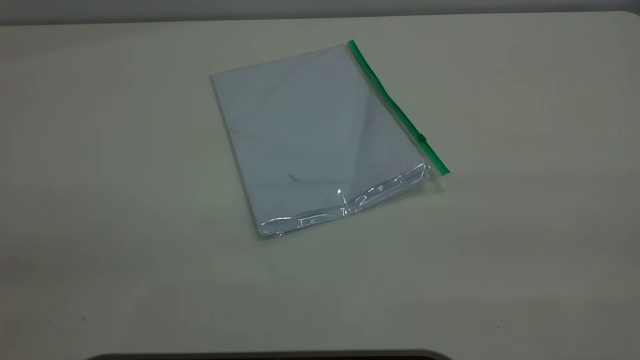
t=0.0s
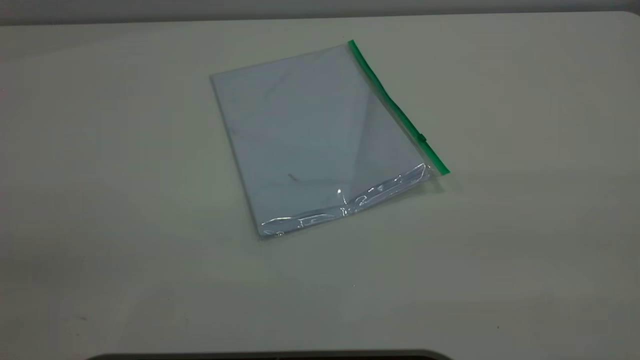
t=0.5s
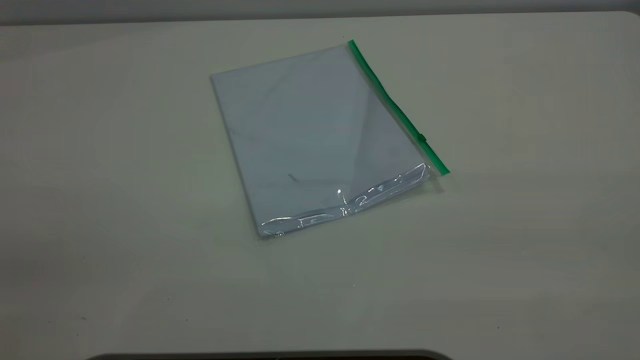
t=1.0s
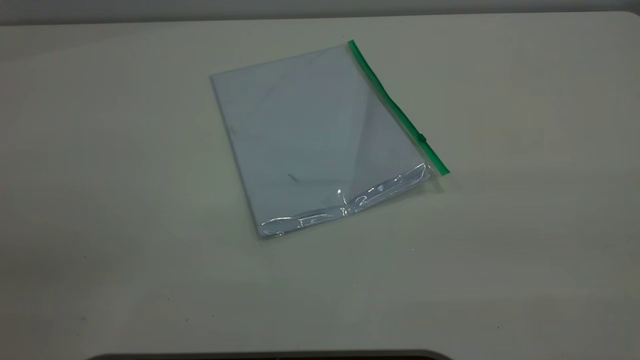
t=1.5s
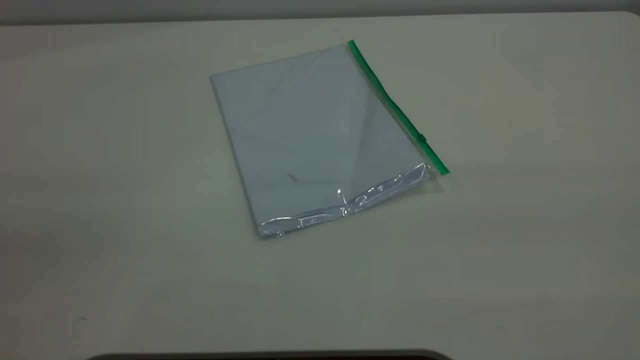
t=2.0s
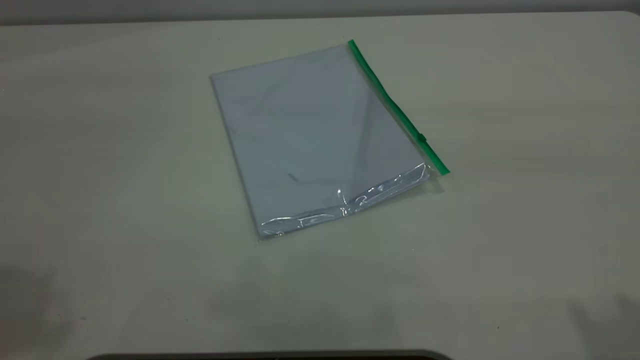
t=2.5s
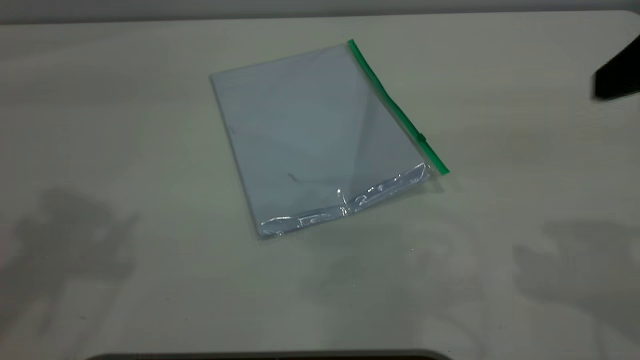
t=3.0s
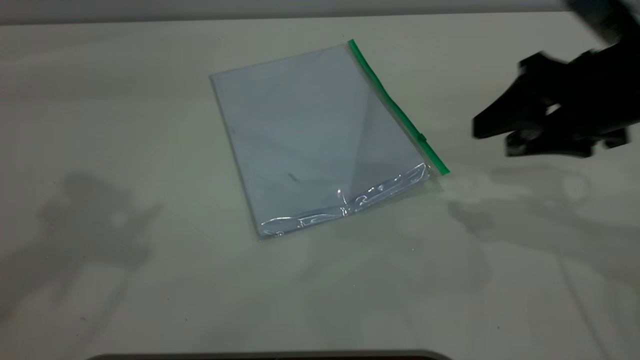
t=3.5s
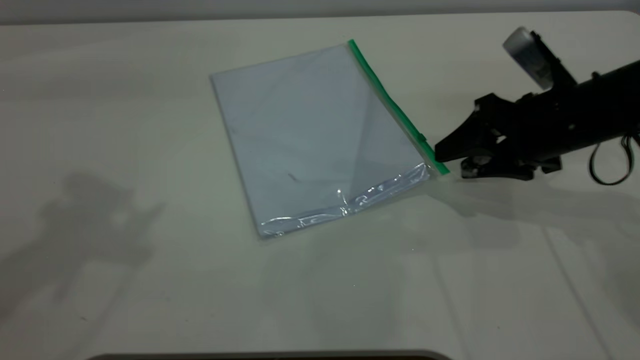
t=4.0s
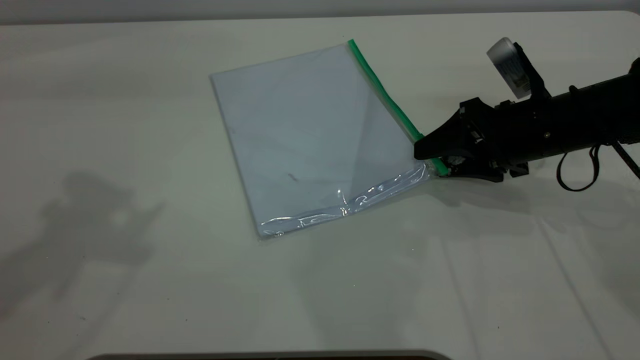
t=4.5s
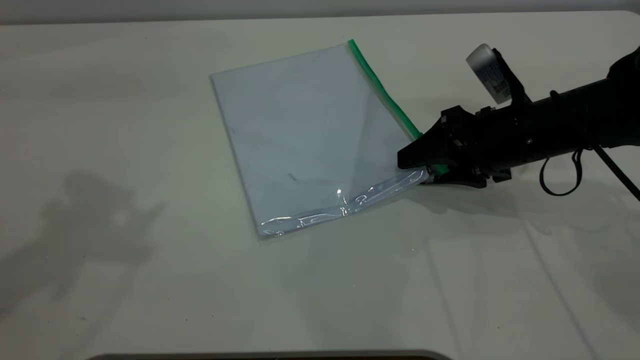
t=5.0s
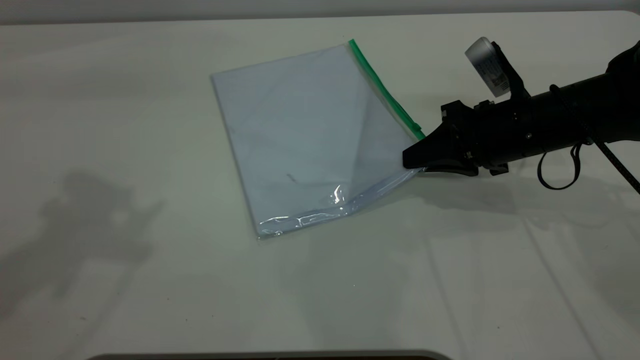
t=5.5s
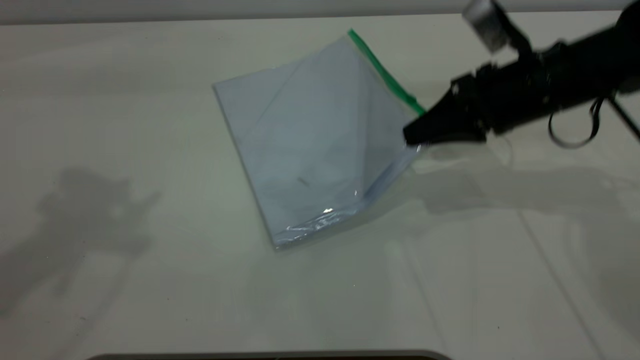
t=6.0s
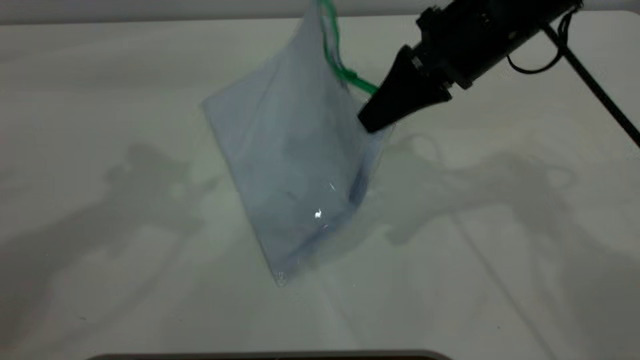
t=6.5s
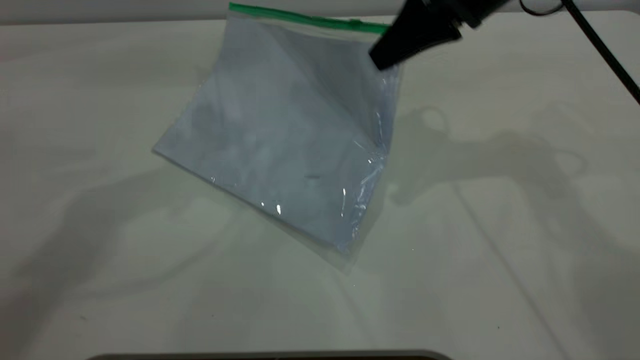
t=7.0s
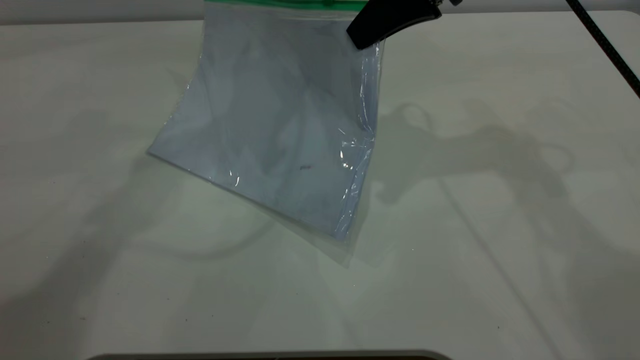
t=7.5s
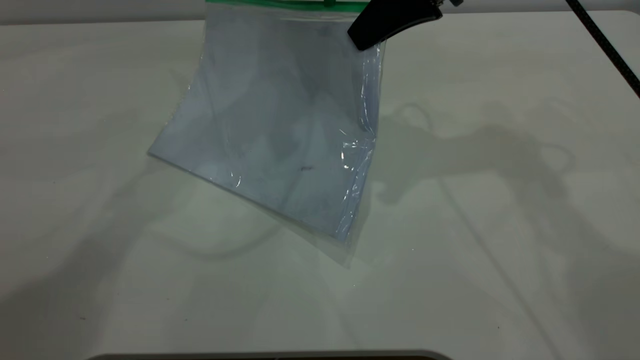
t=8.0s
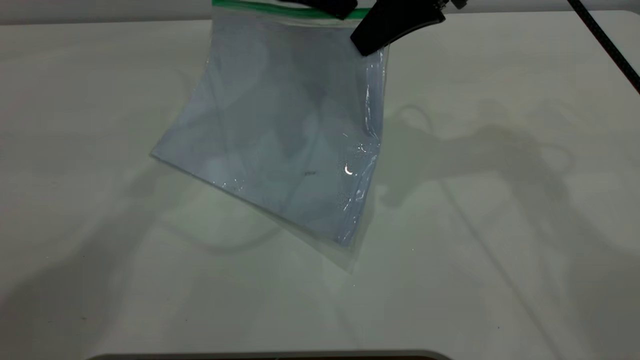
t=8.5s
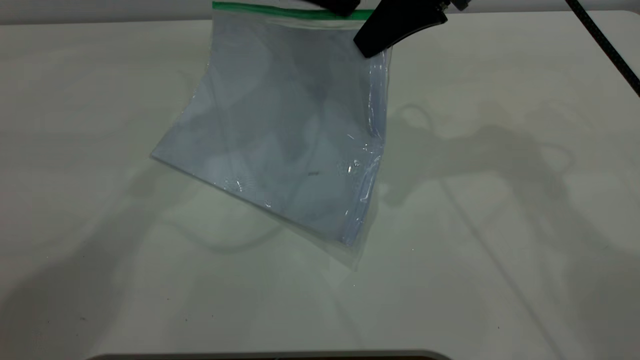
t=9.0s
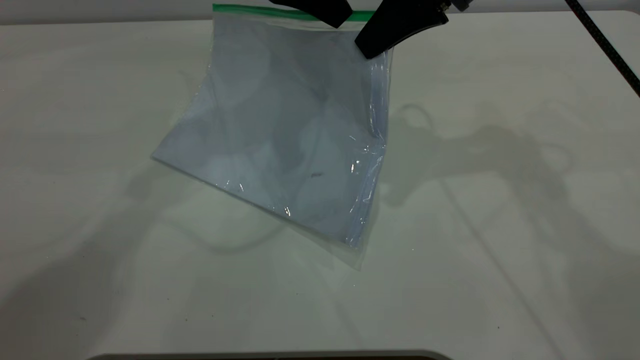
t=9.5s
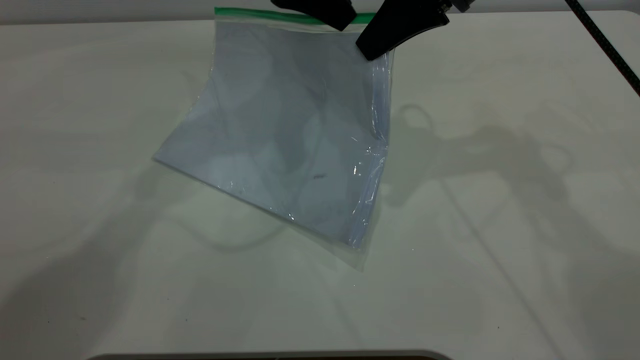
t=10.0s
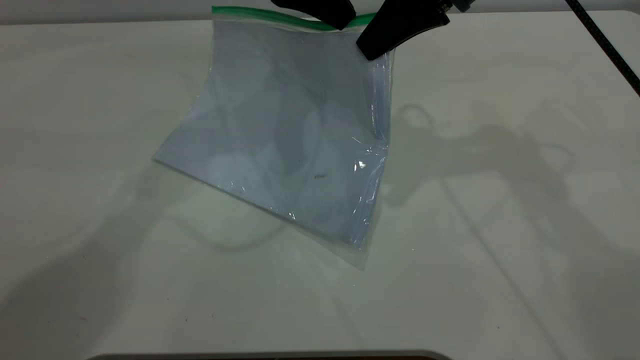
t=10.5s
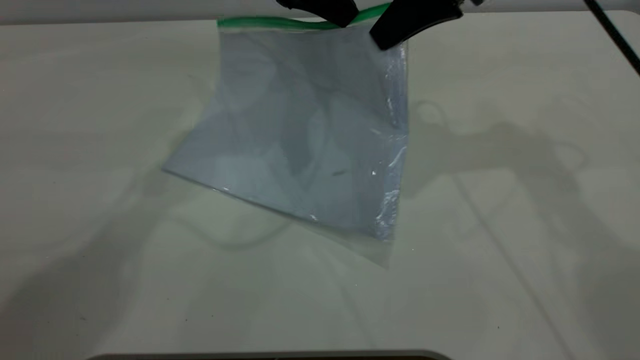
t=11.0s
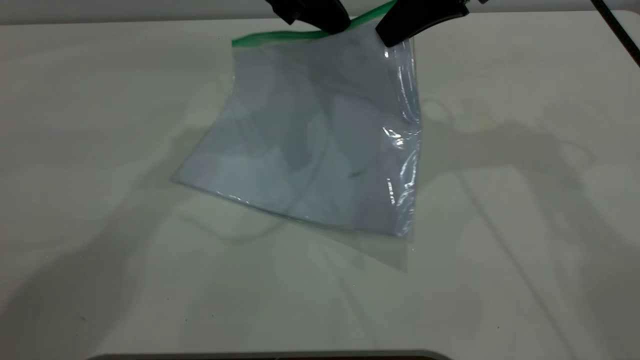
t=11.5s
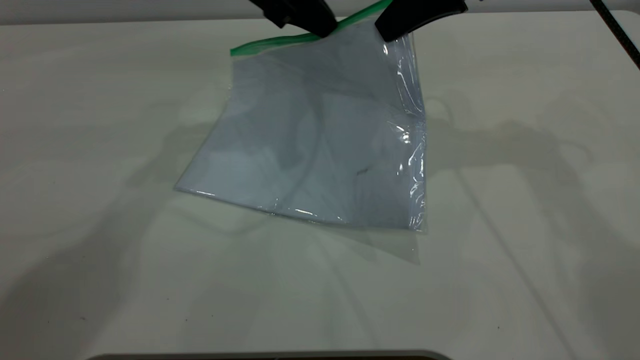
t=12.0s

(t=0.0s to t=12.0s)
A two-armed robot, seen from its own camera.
Step, t=0.0s - t=7.0s: Pick up the transparent plastic bag with the right gripper.
t=2.0s - t=4.0s: The right gripper is displaced forward and downward by about 40 cm.
t=4.0s - t=6.0s: The right gripper ends up roughly 5 cm from where it was, and closes its fingers.
t=6.0s - t=8.0s: The right gripper travels upward and to the left by approximately 15 cm. The left gripper heads to the right, forward and downward, covering some 25 cm.
t=8.0s - t=10.0s: The left gripper closes its fingers.
t=10.0s - t=12.0s: The left gripper closes.

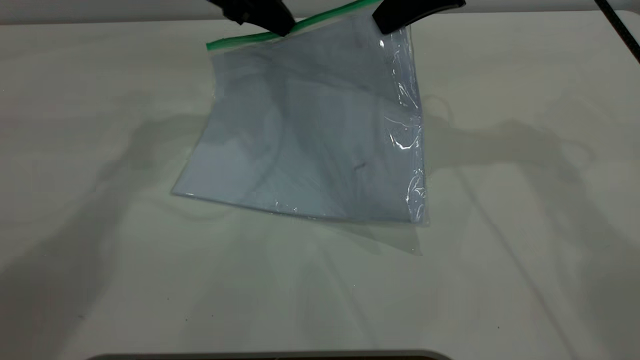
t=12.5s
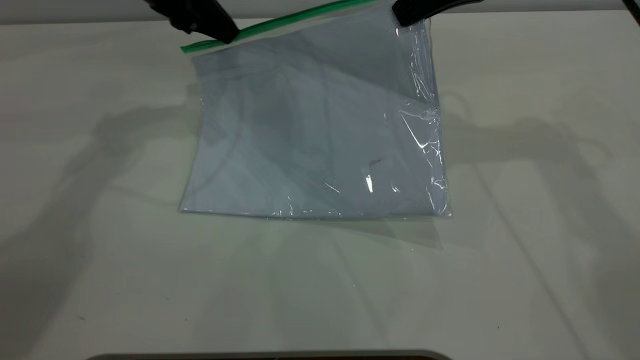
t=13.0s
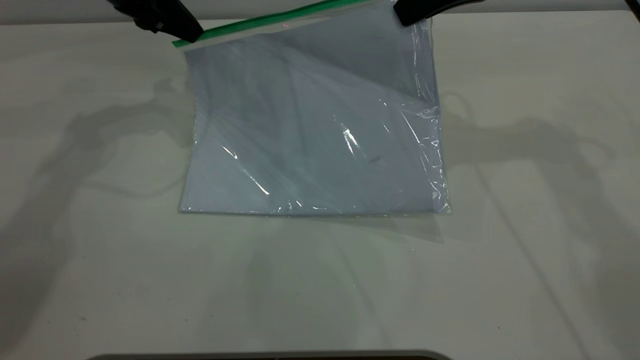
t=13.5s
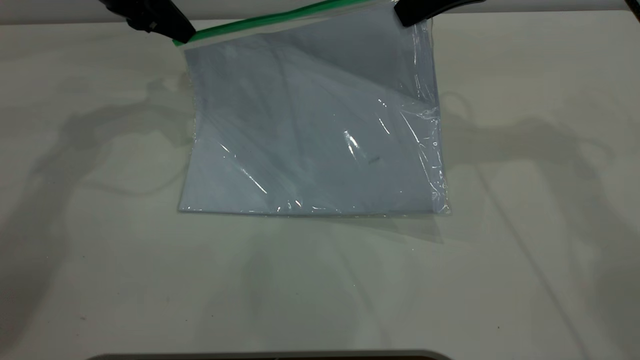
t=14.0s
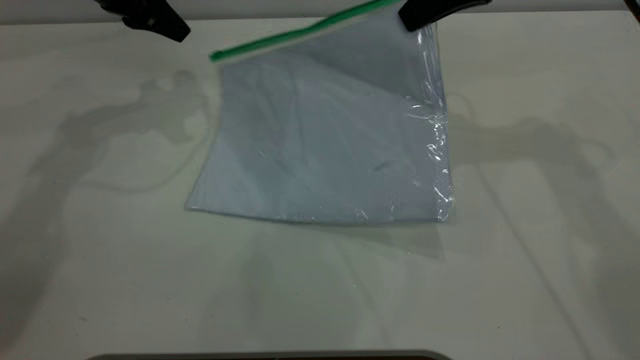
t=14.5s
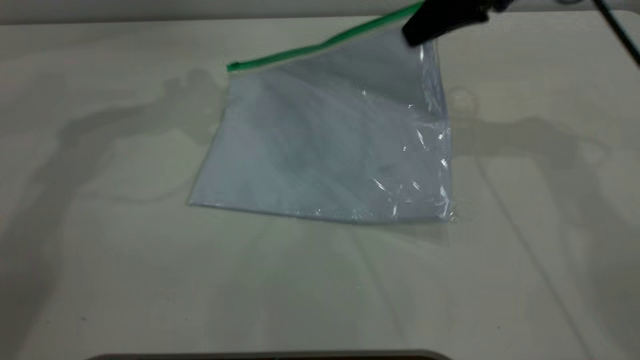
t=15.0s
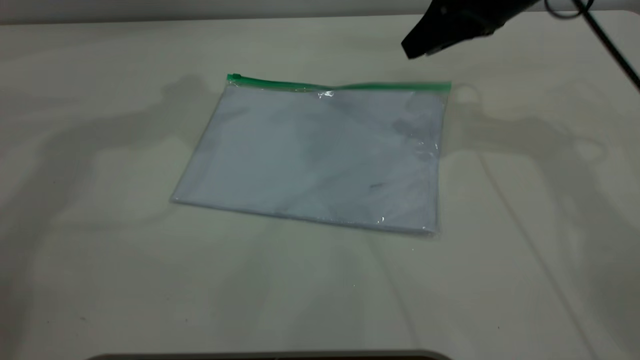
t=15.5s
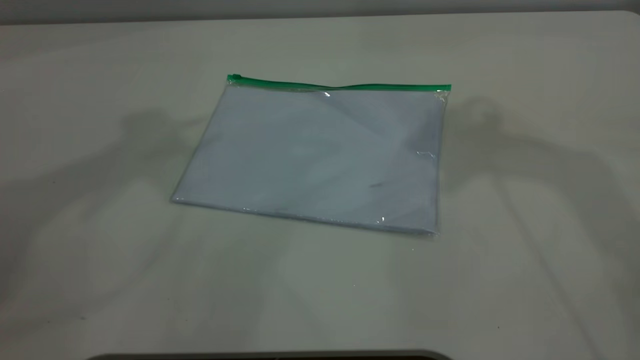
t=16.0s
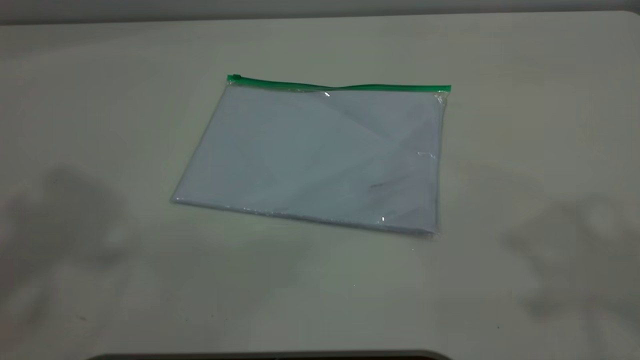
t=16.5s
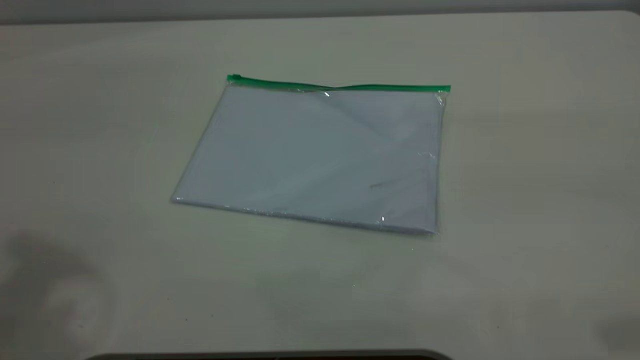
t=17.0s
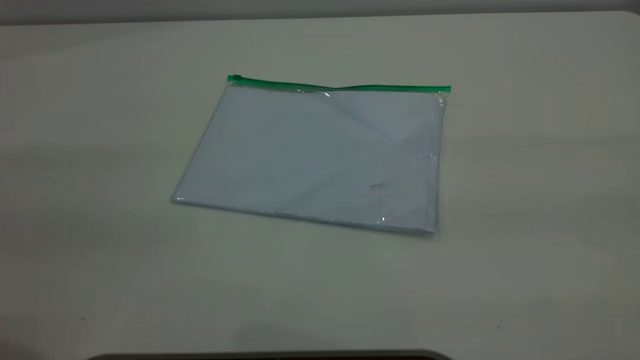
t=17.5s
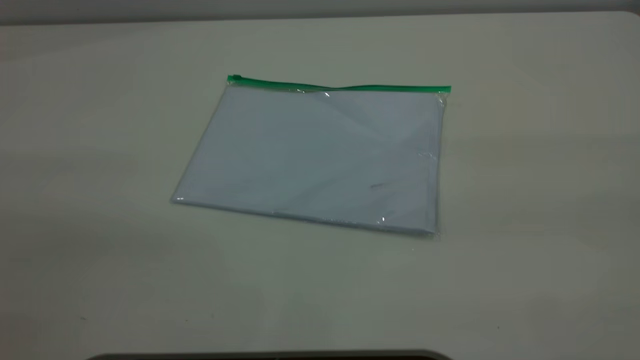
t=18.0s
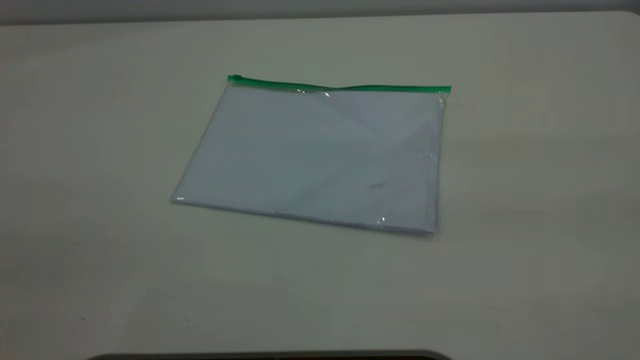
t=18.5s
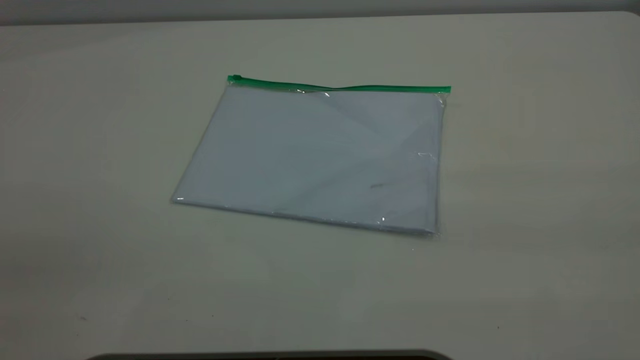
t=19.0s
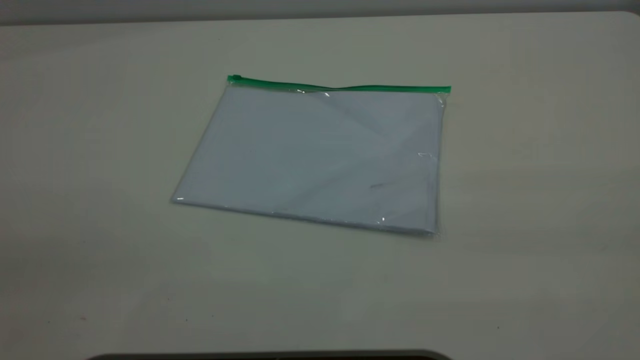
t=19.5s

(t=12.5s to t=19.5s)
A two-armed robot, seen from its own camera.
Step, t=12.5s - t=14.5s: Pulling up the zipper on the transparent plastic bag with the left gripper to close it.
Step, t=15.0s - t=16.0s: Place the transparent plastic bag.
t=12.5s - t=14.5s: The left gripper goes about 10 cm to the left.
t=14.5s - t=16.0s: The left gripper travels upward and backward by about 35 cm, and opens up; the right gripper heads upward, covering roughly 15 cm, and opens.

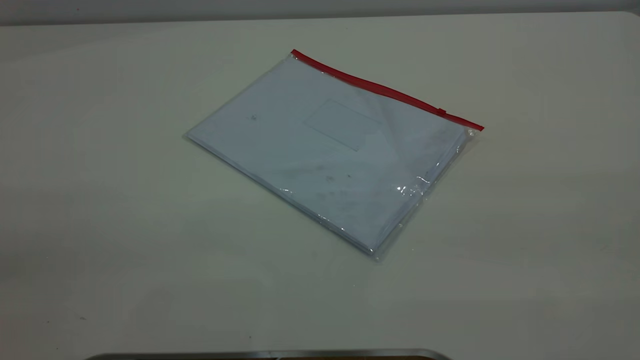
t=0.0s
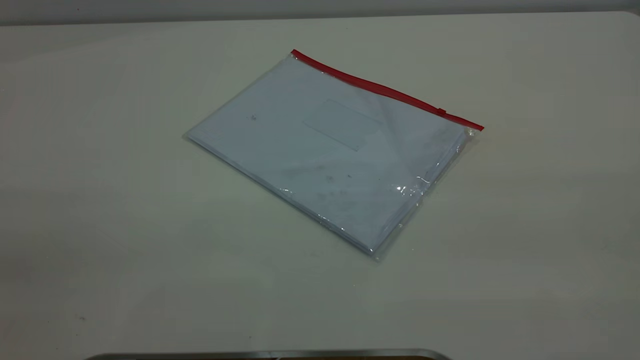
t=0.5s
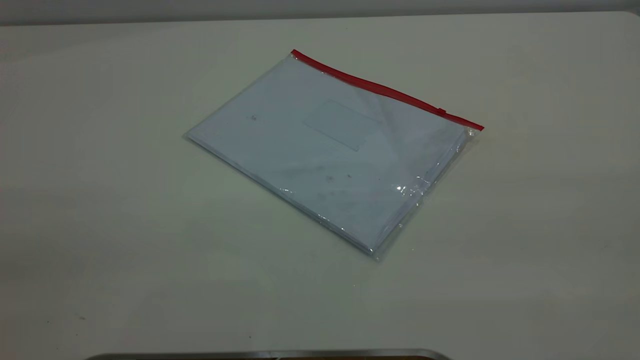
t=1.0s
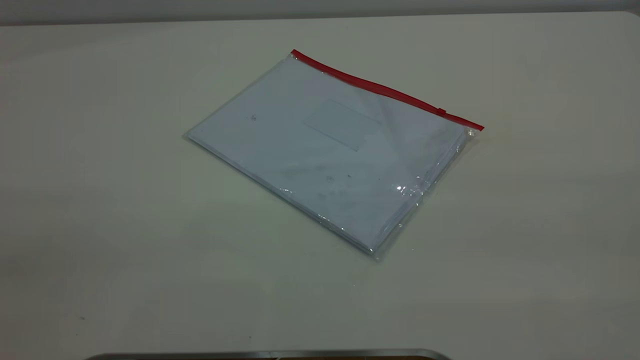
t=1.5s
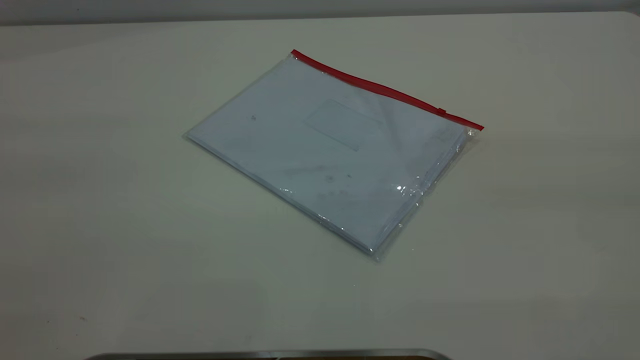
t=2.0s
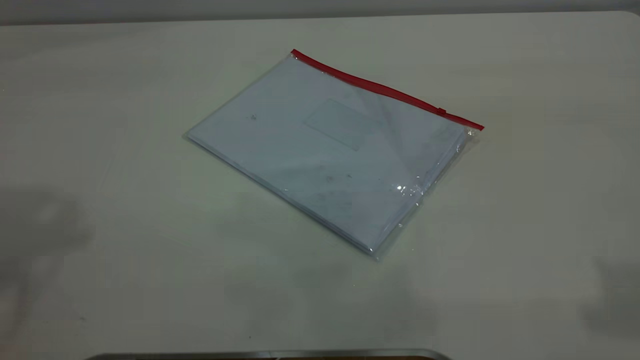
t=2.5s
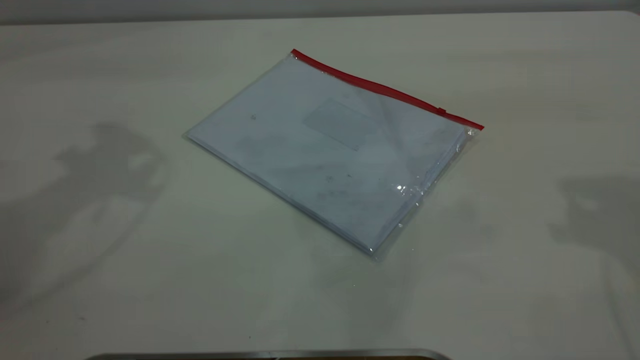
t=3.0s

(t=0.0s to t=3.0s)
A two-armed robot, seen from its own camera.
t=0.0s - t=1.5s: Both grippers stay put.
